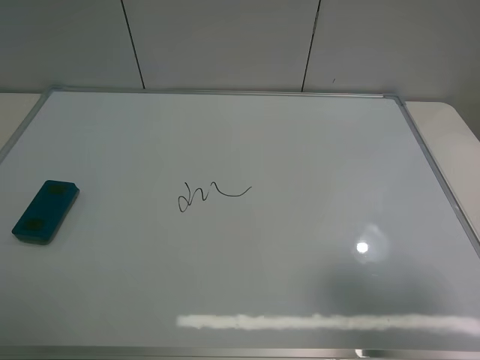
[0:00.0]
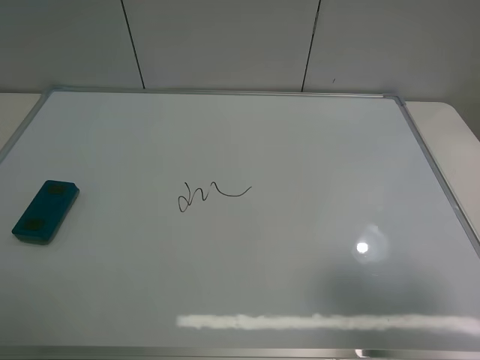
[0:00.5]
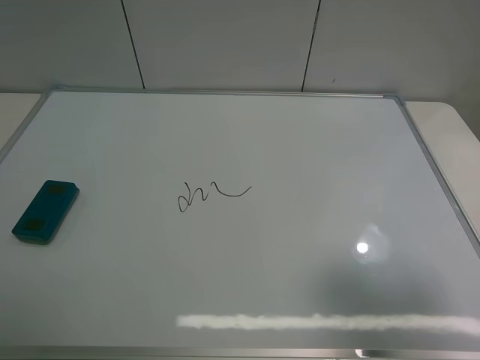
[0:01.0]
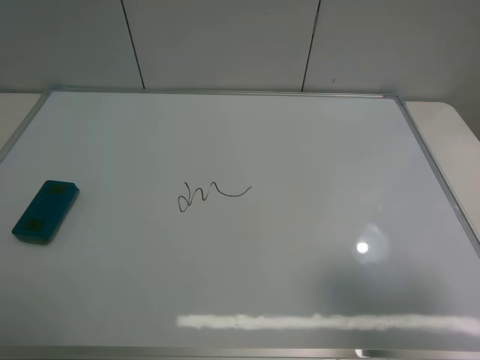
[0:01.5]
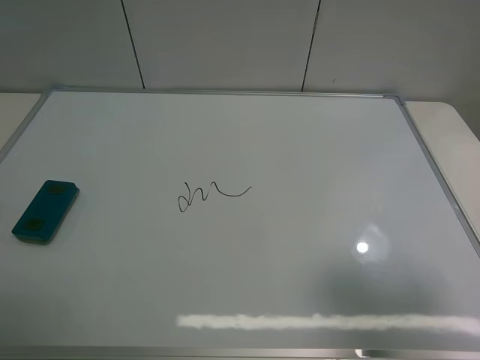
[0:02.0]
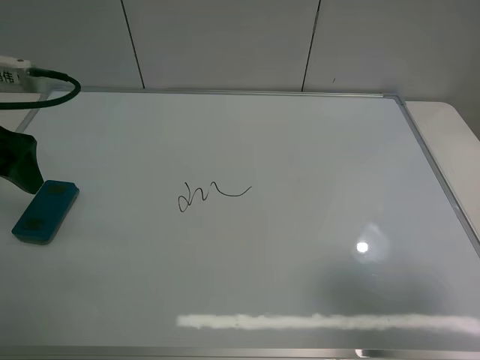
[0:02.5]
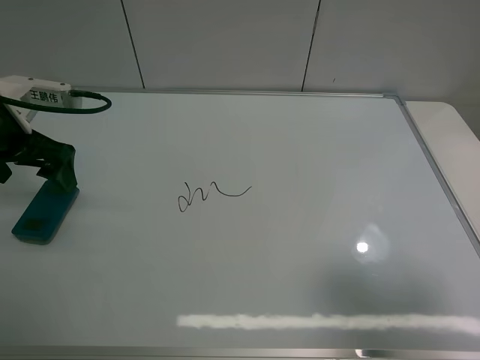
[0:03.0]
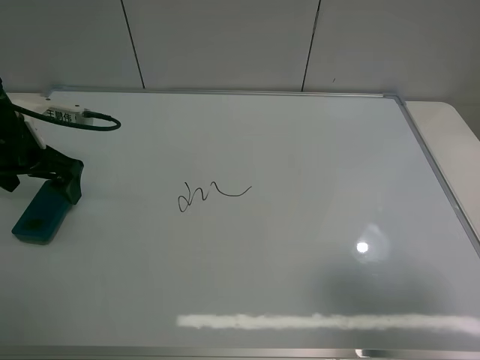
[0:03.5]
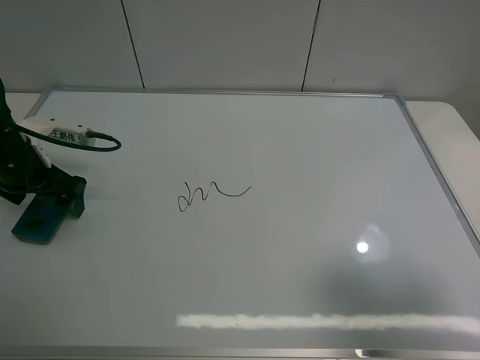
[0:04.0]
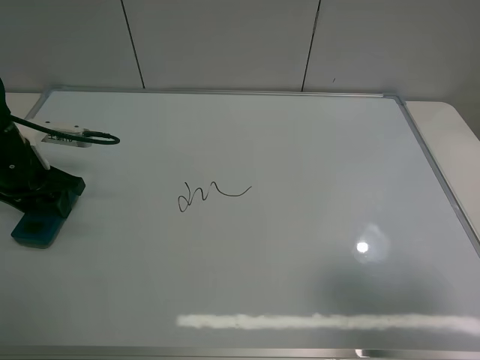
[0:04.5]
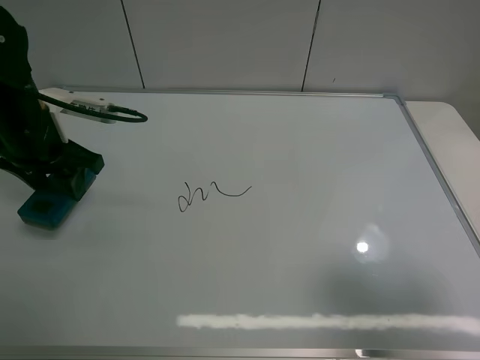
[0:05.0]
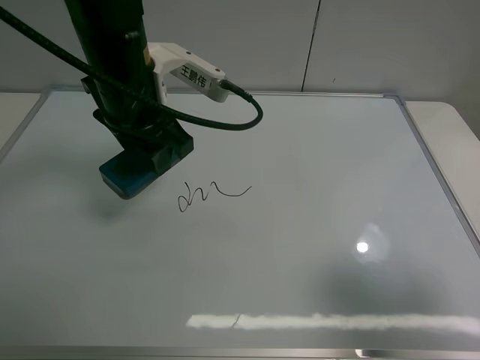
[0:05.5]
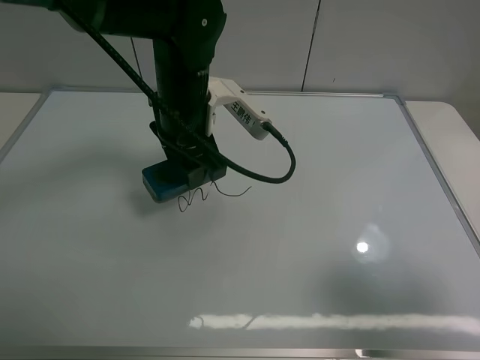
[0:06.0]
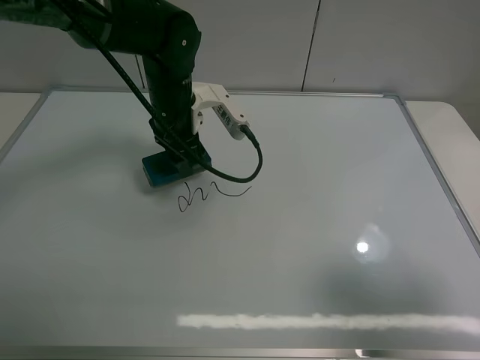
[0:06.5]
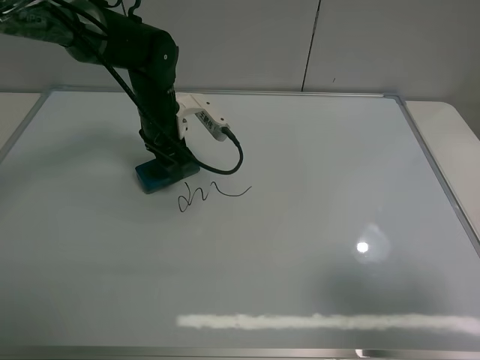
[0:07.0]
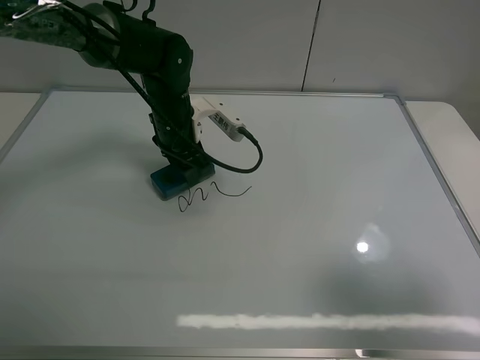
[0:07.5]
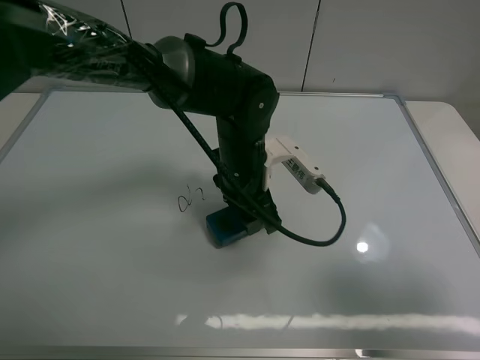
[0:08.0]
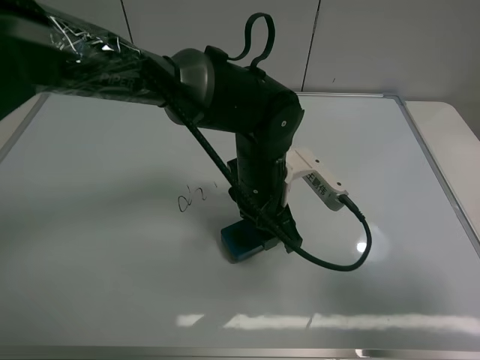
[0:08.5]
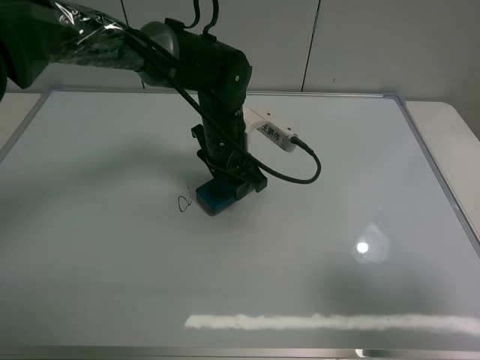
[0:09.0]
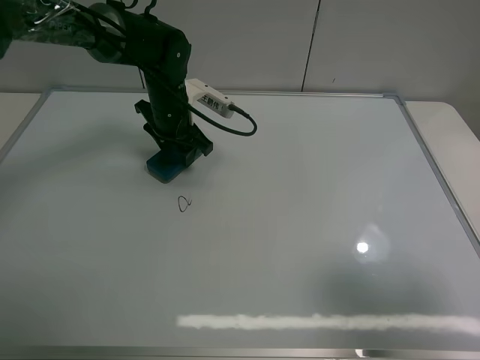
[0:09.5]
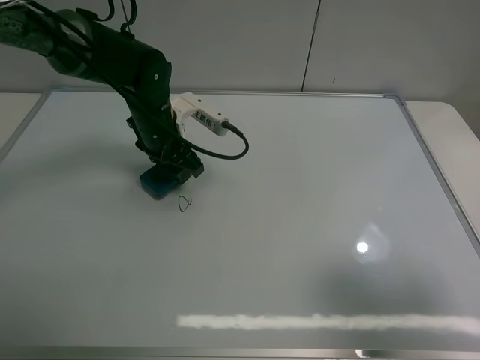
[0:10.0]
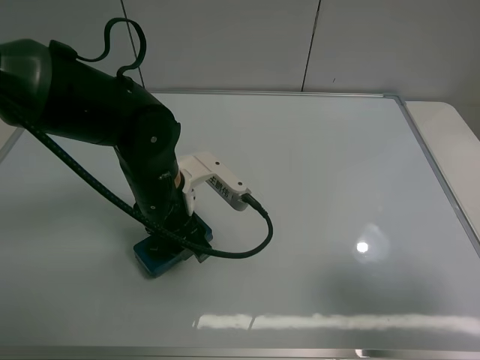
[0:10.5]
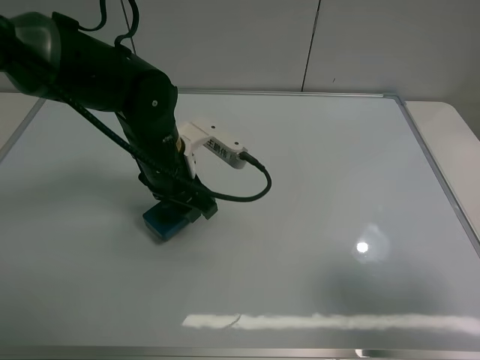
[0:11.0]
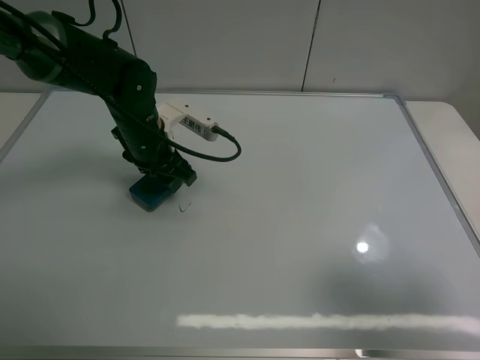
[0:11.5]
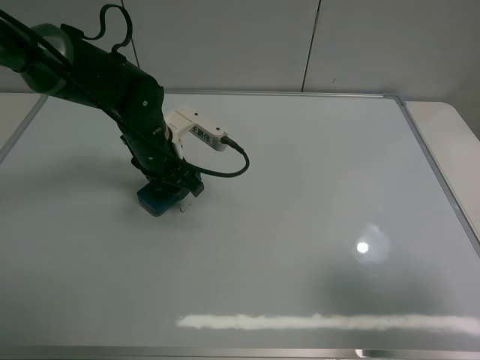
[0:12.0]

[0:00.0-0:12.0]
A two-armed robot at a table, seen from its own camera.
Task of the whole recording: use the left claw to pick up the whiteboard eraser, wipe the notes on the whiteboard clean, and then put them back in place.
Step, 0:00.0 to 0:04.5: Grasp the eraser with the left gripper.
0:02.0 to 0:04.0: The left gripper travels downward and forward by about 25 cm.
0:04.0 to 0:06.0: The left gripper moves to the right, roughly 25 cm, and closes its fingers.
0:06.0 to 0:08.0: The left gripper goes approximately 10 cm to the right and downward.
0:08.0 to 0:10.0: The left gripper is displaced to the left and forward by approximately 15 cm.
0:10.0 to 0:12.0: The left gripper goes backward and returns, approximately 10 cm each way.

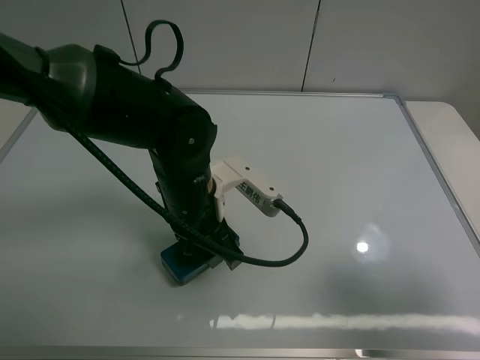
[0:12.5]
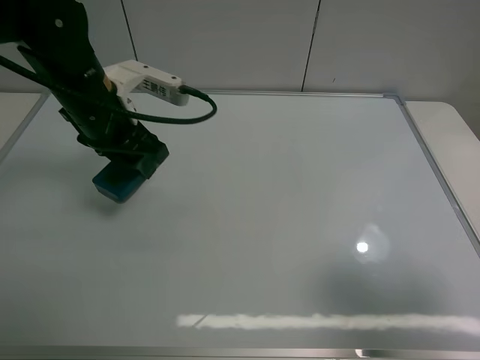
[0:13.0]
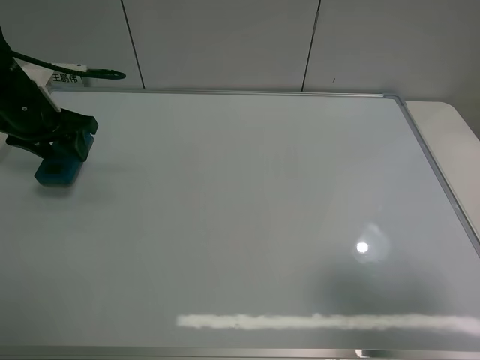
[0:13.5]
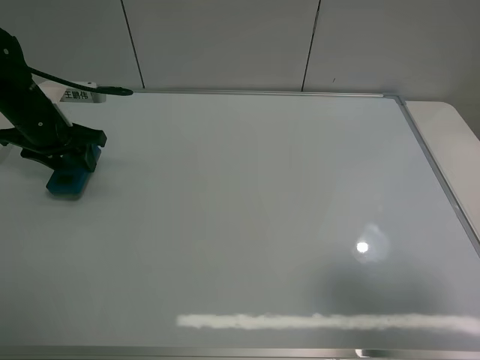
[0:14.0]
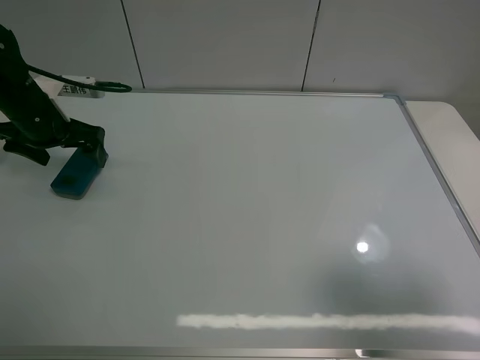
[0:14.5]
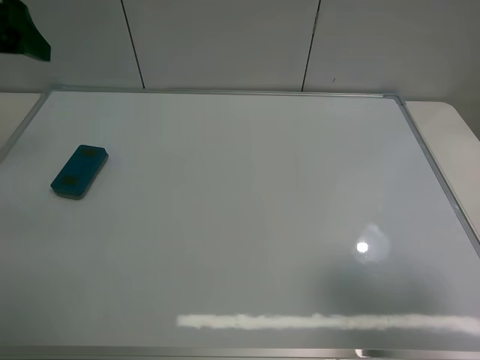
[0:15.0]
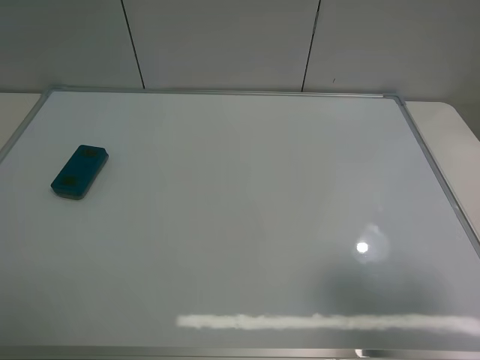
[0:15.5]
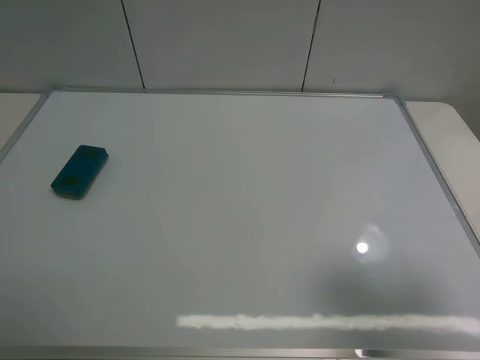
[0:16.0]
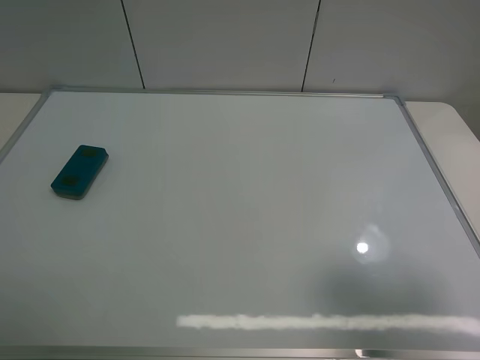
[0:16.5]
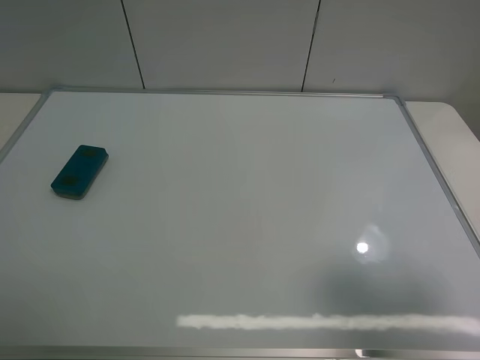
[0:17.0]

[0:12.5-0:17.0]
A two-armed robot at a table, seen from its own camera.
Task of the whole recording: use the left claw to pick up the whiteboard eraser, wipe the notes on the whiteboard clean, and then put them back in place.
Step, 0:12.5 to 0:14.0: Place the eraser with the left gripper.
0:12.5 to 0:14.5: The left gripper travels to the left and forward by approximately 25 cm, and opens.
0:14.5 to 0:17.0: The left gripper heads backward, covering approximately 35 cm.
